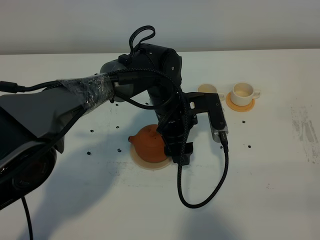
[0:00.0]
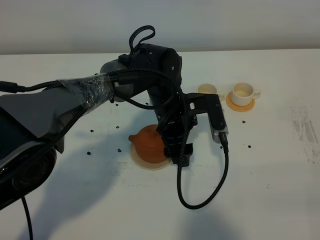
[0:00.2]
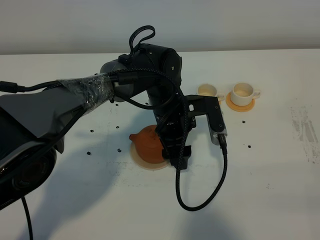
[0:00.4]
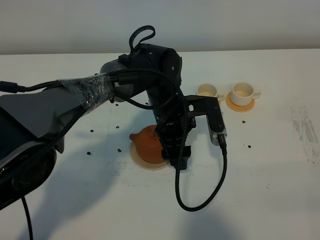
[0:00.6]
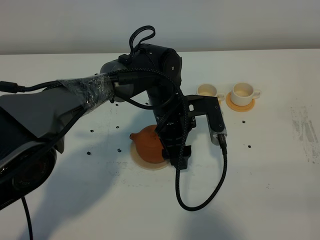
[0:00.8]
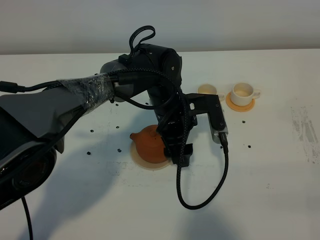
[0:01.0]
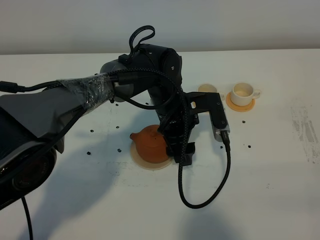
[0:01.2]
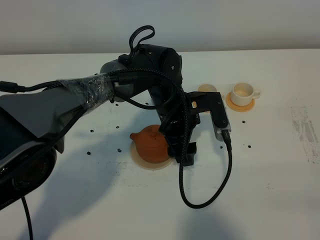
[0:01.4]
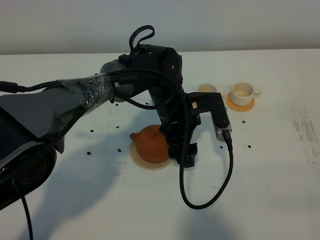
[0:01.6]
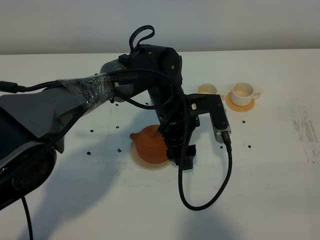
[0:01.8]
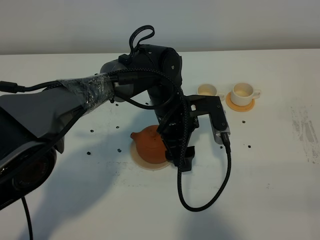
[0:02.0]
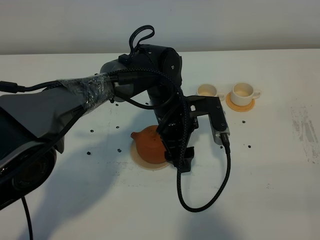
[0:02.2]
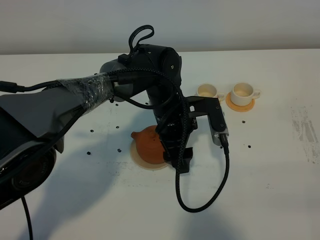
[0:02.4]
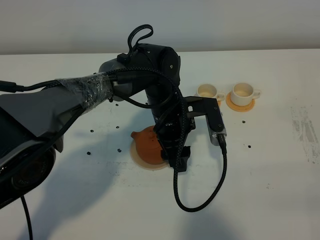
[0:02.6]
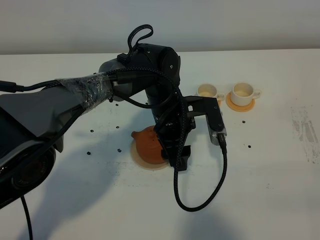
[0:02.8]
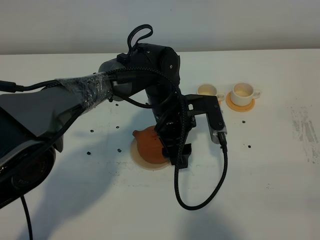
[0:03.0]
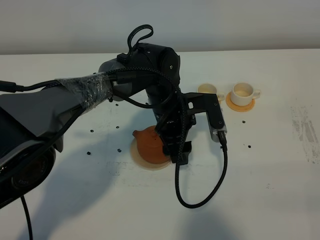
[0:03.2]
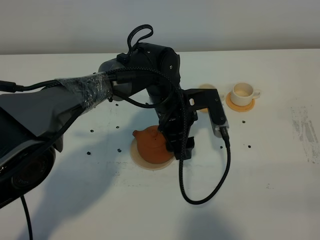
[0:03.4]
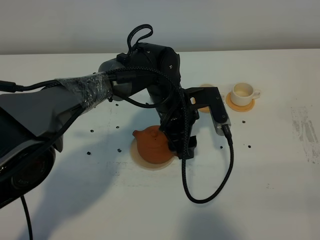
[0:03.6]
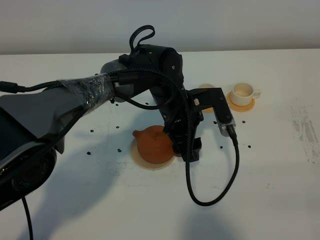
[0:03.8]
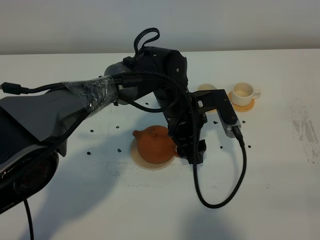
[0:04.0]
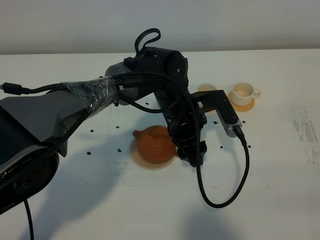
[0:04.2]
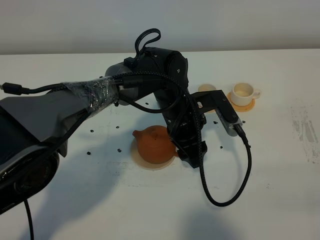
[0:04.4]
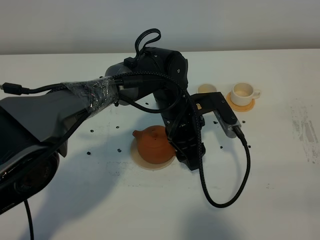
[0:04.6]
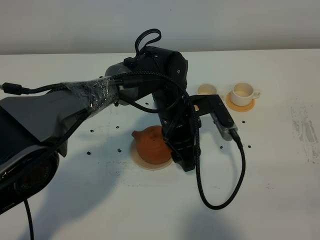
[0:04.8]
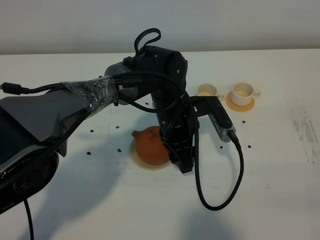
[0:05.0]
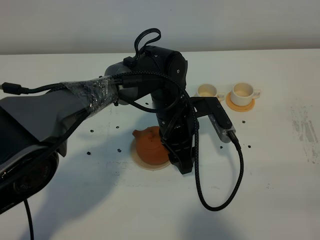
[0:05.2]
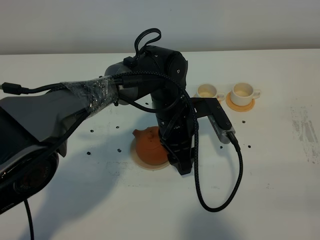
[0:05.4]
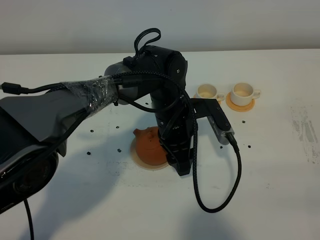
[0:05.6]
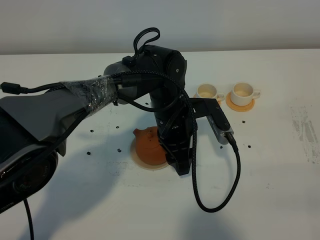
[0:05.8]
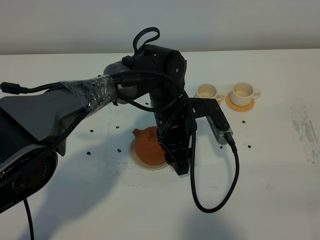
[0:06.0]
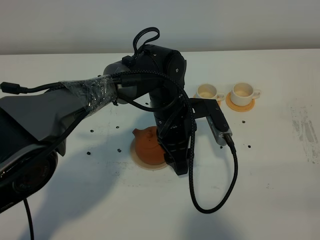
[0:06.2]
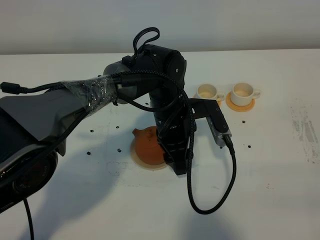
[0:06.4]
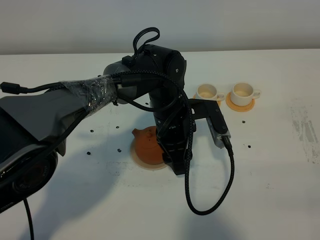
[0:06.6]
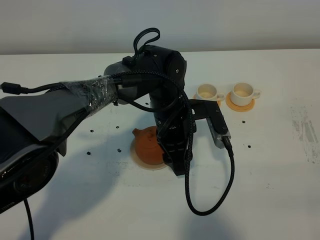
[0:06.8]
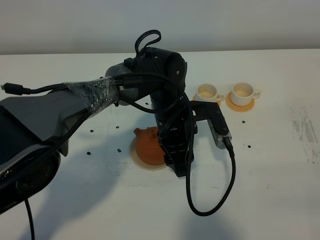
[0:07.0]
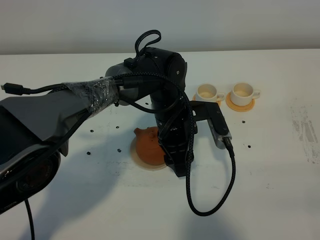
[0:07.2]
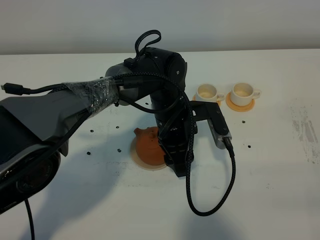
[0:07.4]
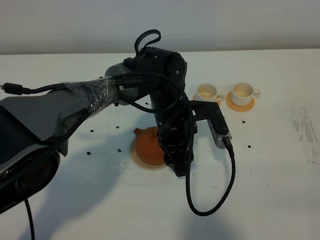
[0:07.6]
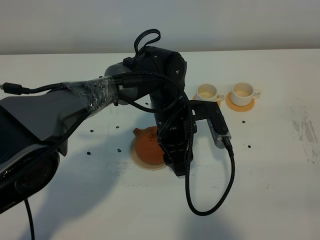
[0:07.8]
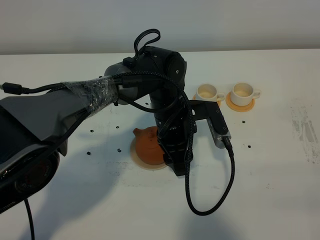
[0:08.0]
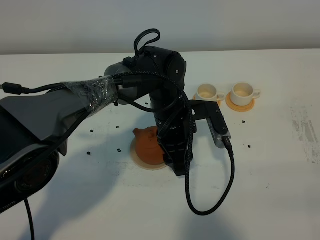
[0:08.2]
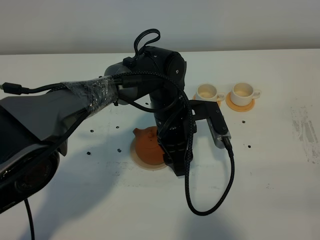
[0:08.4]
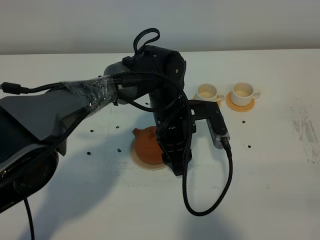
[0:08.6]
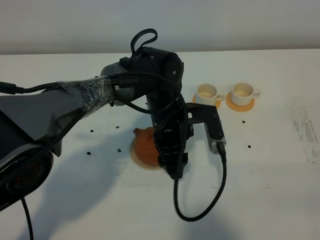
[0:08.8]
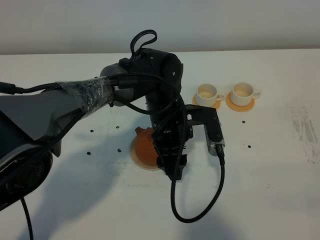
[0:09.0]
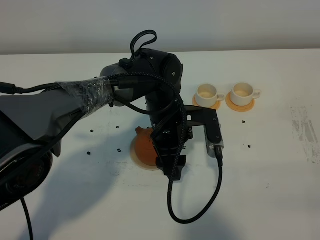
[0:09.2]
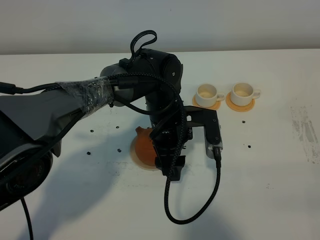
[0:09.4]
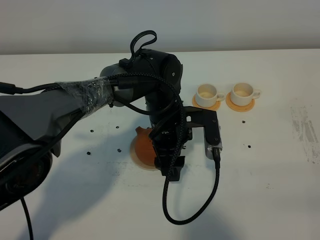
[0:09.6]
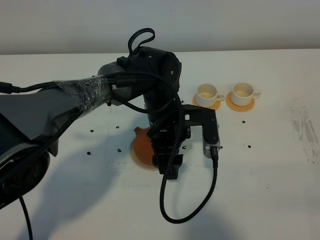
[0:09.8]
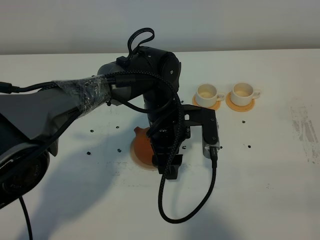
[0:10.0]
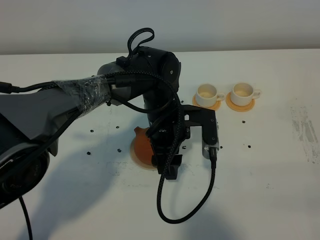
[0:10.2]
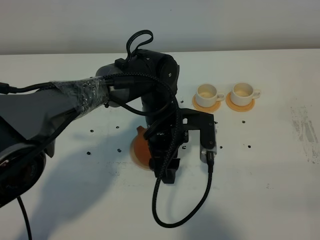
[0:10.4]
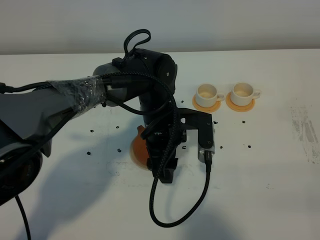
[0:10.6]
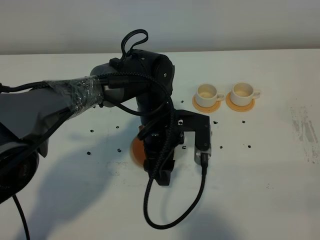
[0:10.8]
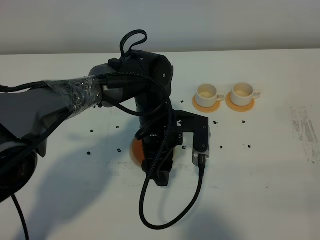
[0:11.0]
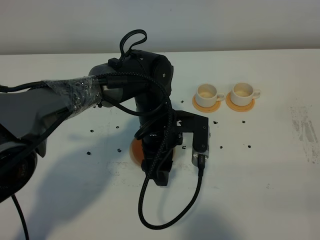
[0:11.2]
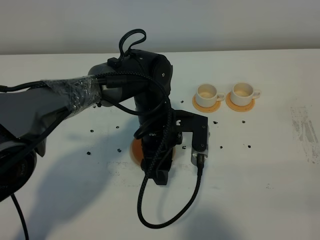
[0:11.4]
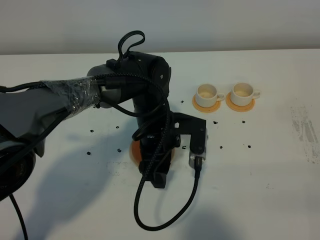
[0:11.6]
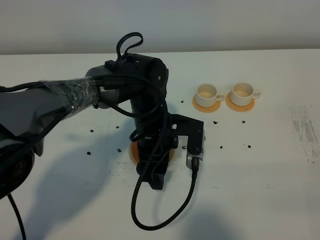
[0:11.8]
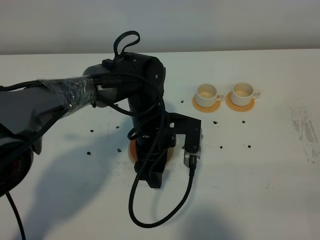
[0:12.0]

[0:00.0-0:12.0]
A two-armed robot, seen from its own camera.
Task of the whole recording: grasp the brown teapot and pour the tea into the two white teacups one by one, put the brown teapot back in its original place.
0:00.0 to 0:01.6: Both grippers stay put.
0:01.6 to 0:06.0: The grippers make only small movements.
0:06.0 to 0:07.6: Both grippers stay about where they are.
0:07.6 to 0:12.0: There are only small adjustments of the grippers.

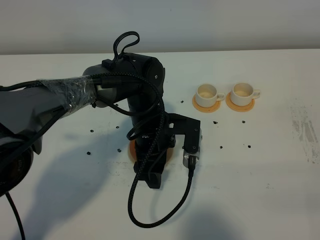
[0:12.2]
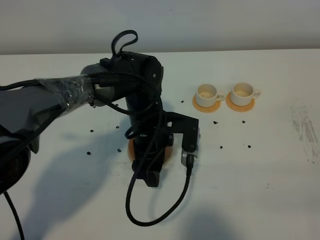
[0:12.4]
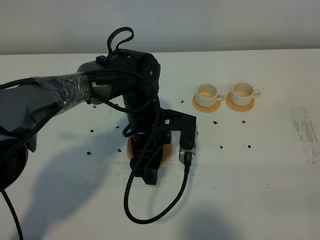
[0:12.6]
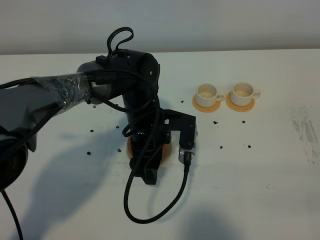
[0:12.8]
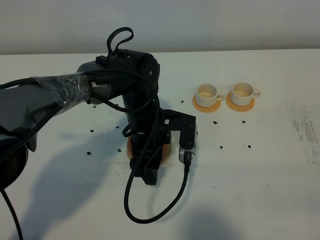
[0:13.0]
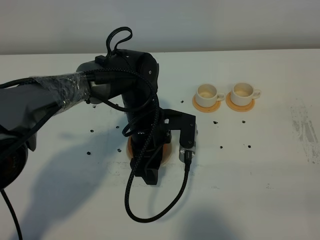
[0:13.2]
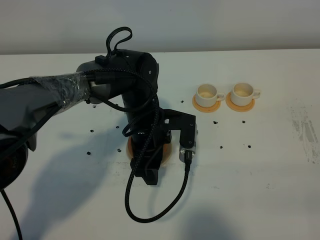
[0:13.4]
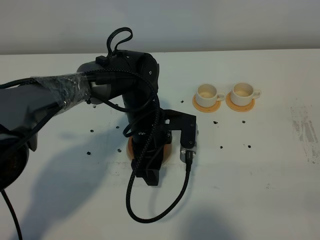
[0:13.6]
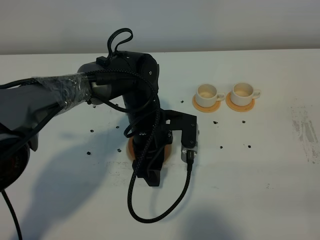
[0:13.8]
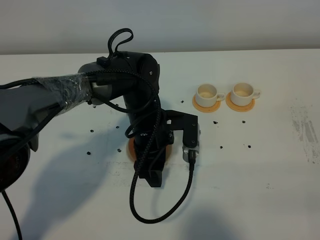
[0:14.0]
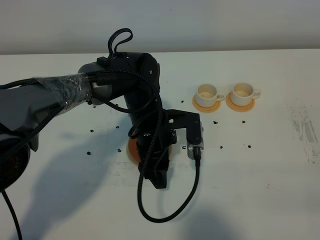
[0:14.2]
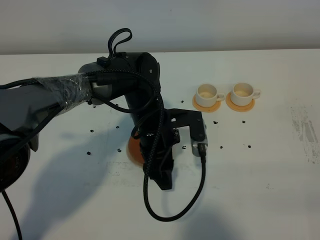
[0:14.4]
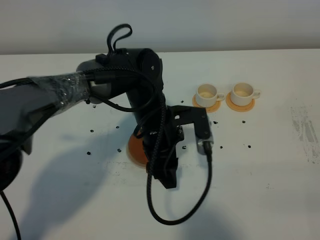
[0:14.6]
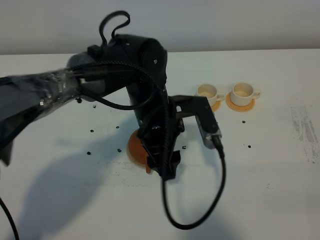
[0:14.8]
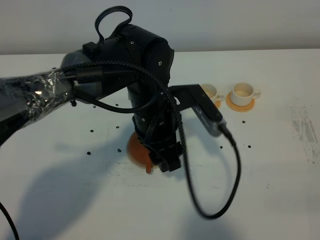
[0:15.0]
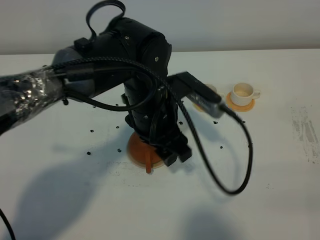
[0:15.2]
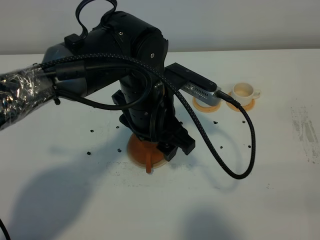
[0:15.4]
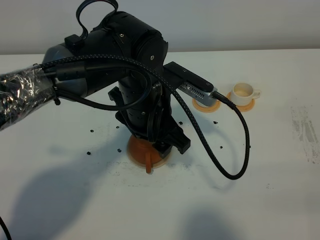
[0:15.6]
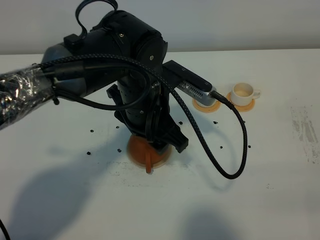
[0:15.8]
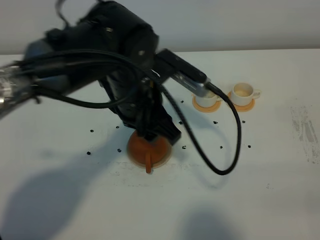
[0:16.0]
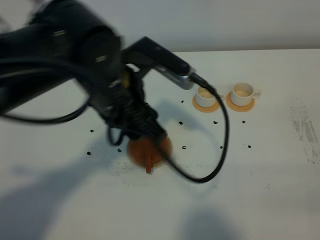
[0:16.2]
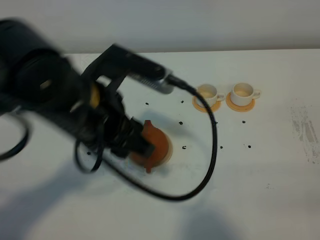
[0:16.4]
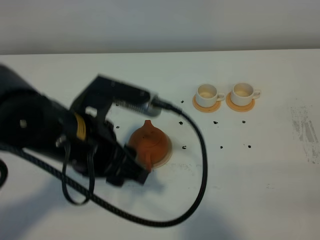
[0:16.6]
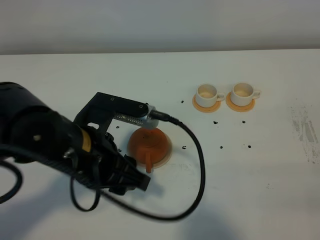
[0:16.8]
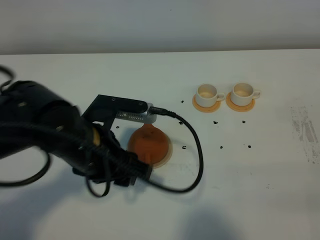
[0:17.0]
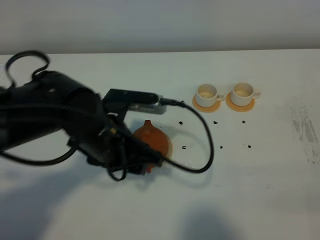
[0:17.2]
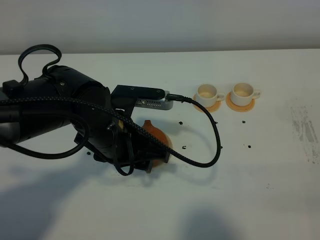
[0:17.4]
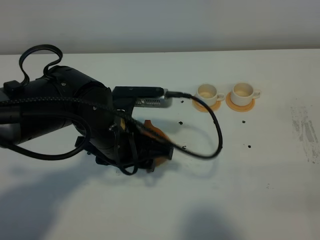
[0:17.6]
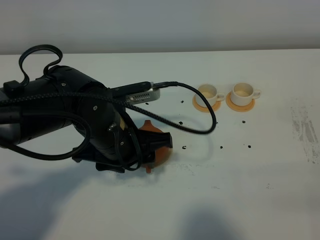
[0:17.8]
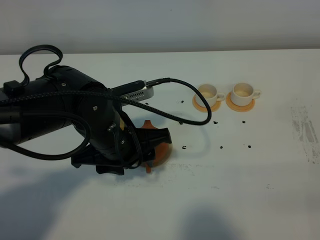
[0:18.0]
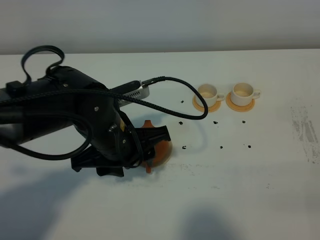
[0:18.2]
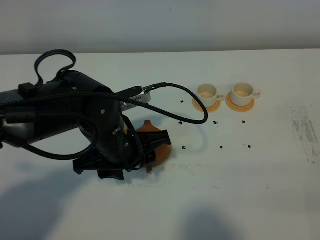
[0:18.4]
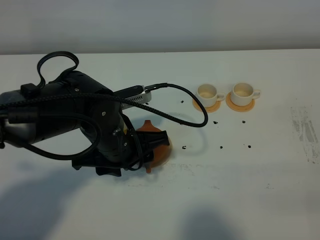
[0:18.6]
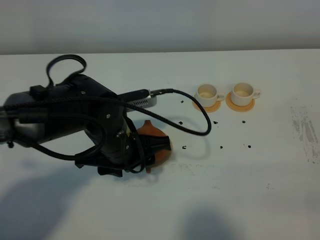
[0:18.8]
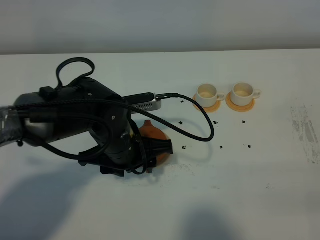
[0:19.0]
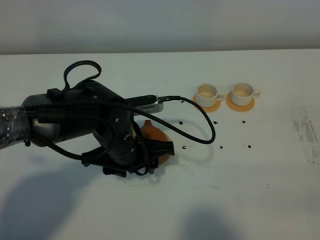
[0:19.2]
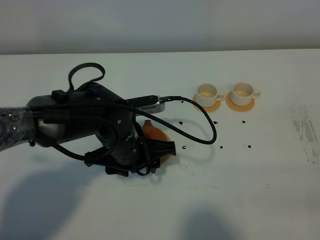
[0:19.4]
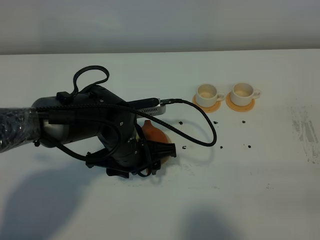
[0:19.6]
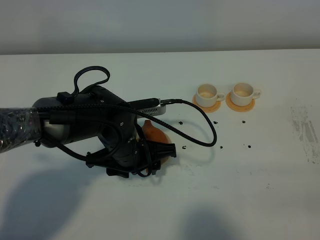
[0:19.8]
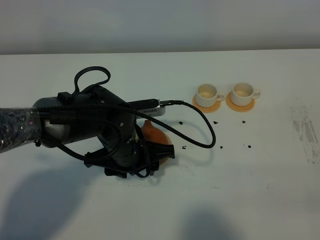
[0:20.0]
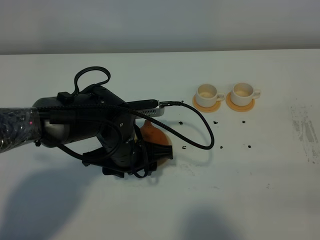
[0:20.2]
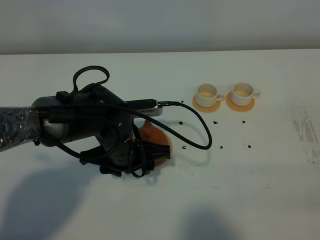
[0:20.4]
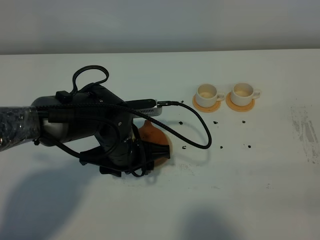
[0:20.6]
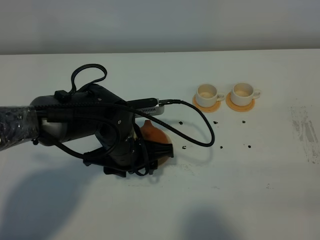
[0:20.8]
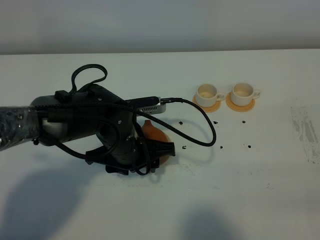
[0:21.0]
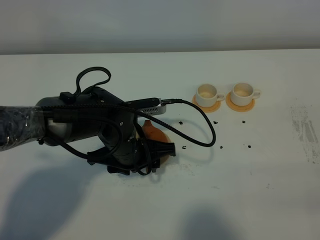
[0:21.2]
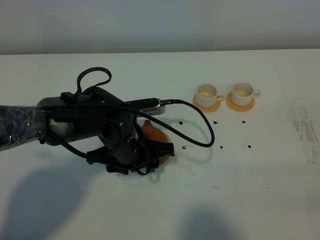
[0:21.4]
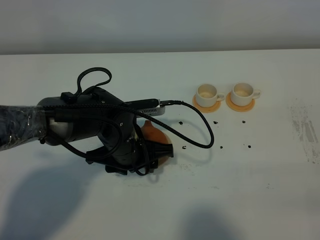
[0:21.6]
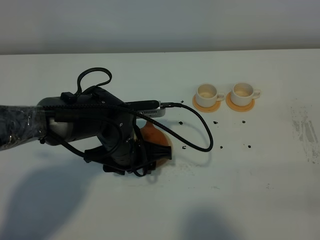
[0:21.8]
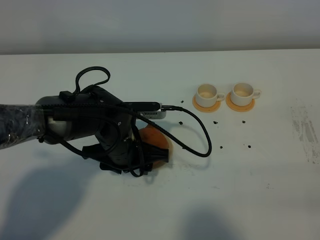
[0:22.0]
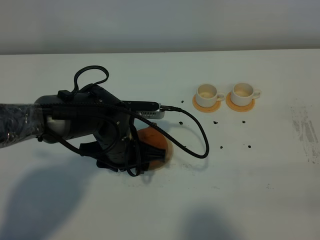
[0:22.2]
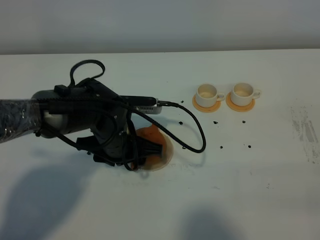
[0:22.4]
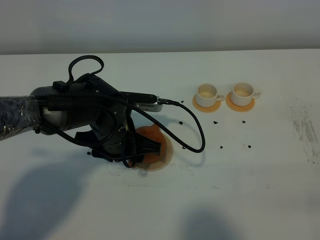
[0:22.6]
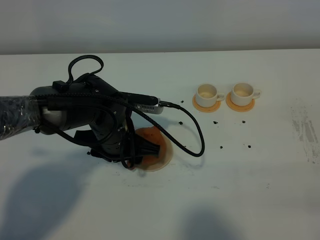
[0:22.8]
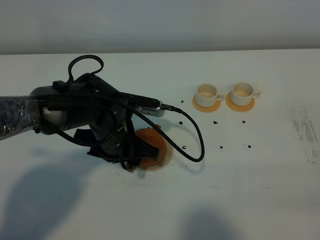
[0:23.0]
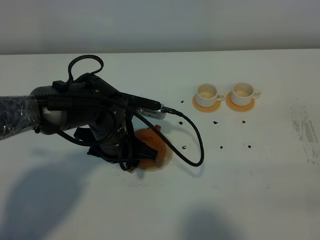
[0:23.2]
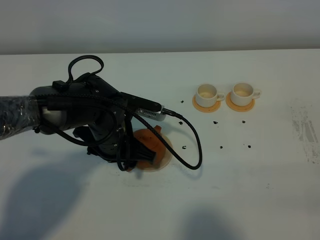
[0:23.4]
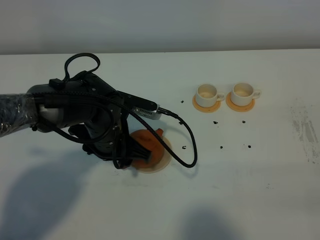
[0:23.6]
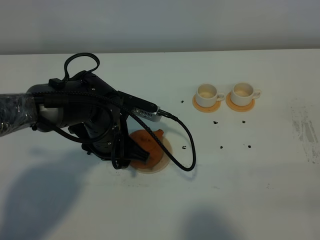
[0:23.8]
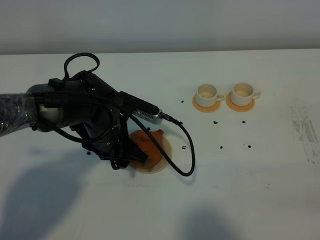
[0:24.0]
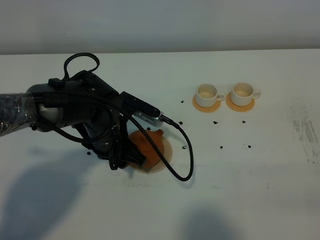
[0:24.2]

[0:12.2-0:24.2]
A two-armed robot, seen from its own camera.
Task of the whole recording: grasp the brown teapot and pour the tea into the two white teacups one by one, put the brown teapot back in its original place.
0:12.2 to 0:13.8: Neither gripper changes place.
0:13.8 to 0:15.2: The left gripper goes approximately 10 cm upward.
0:15.2 to 0:16.6: The left gripper goes approximately 15 cm backward and to the left.
0:16.6 to 0:18.2: The left gripper shifts about 10 cm downward and forward.
0:18.2 to 0:19.8: The left gripper heads downward, covering approximately 5 cm.
0:19.8 to 0:21.2: The two grippers keep their place.
0:21.2 to 0:22.6: There are only small adjustments of the grippers.
